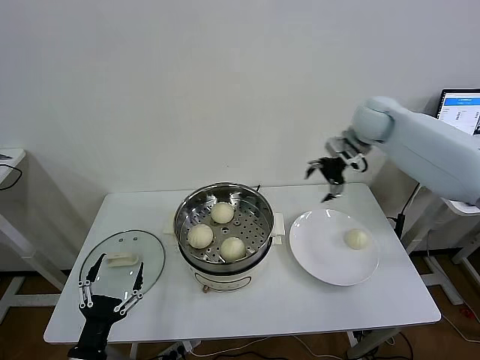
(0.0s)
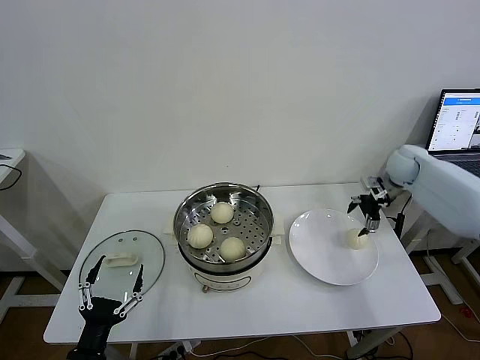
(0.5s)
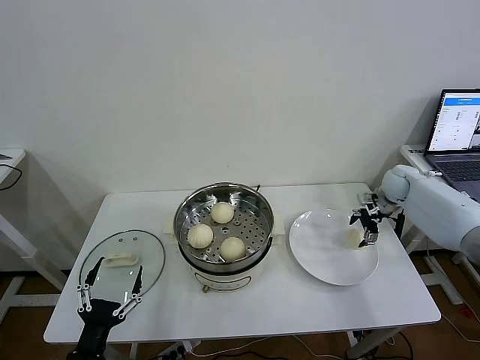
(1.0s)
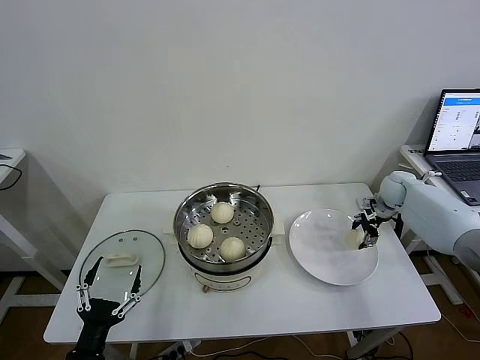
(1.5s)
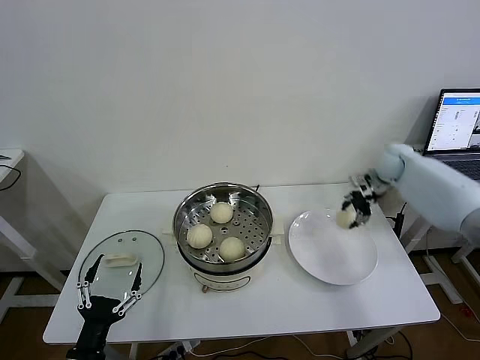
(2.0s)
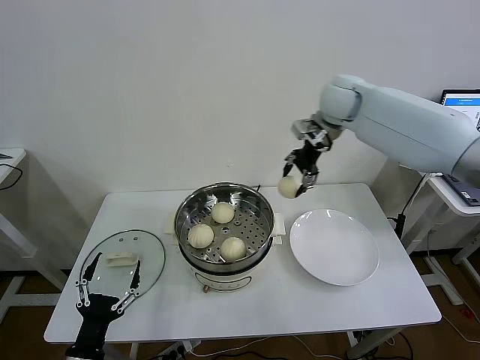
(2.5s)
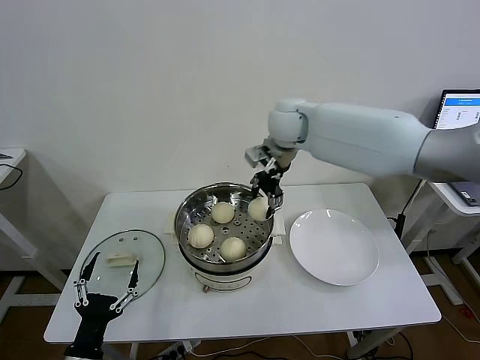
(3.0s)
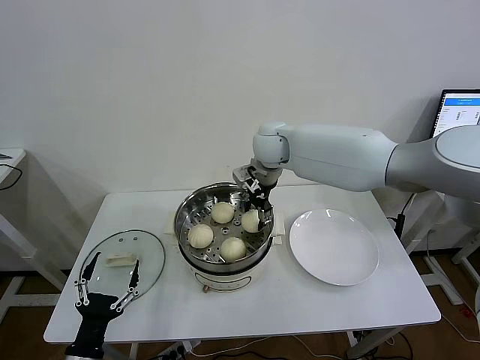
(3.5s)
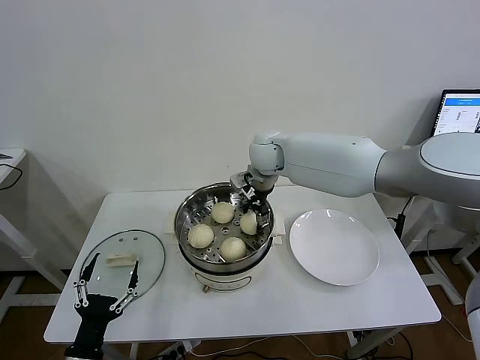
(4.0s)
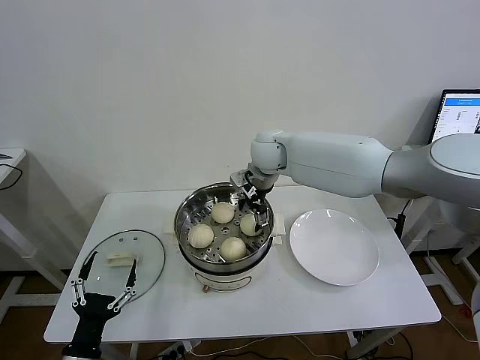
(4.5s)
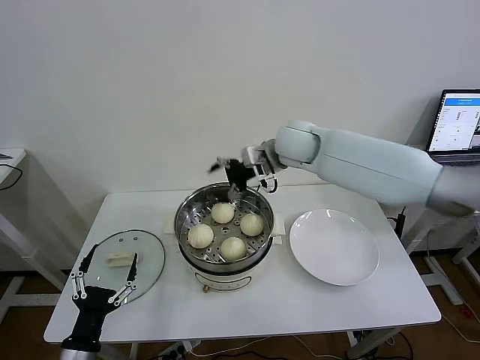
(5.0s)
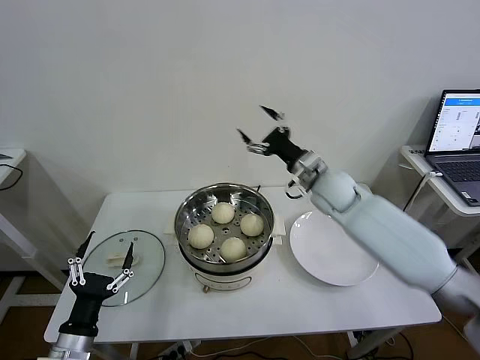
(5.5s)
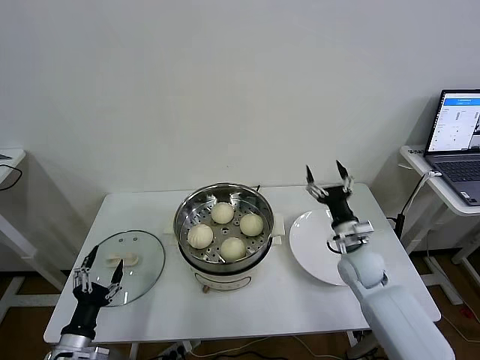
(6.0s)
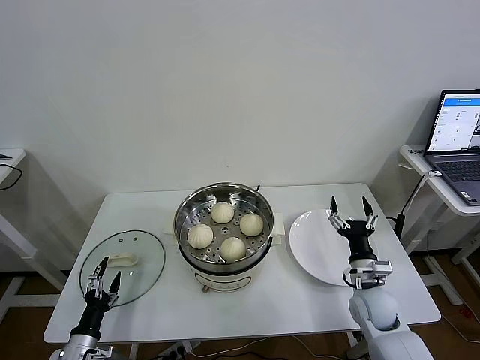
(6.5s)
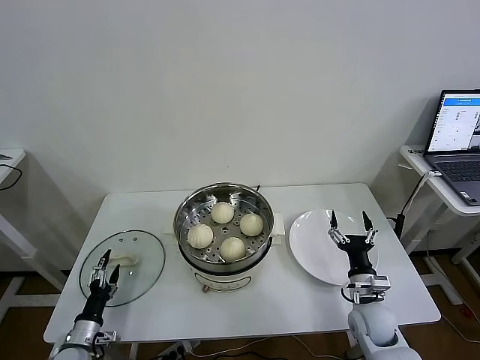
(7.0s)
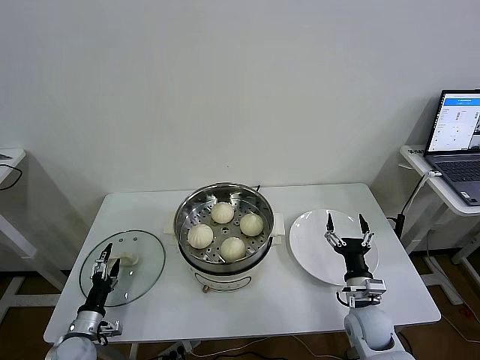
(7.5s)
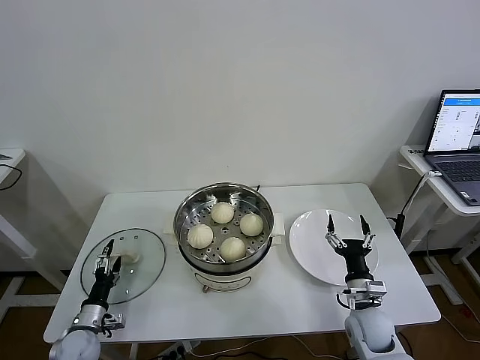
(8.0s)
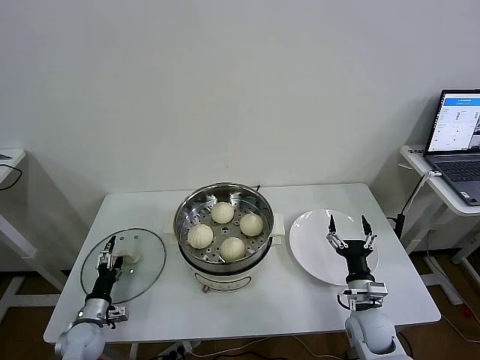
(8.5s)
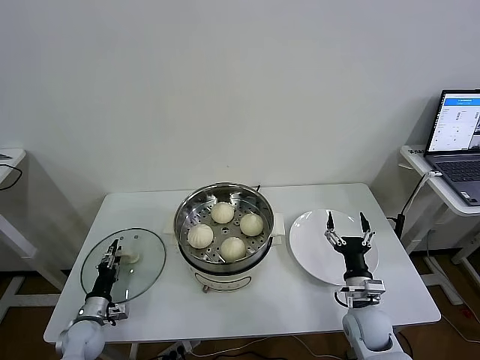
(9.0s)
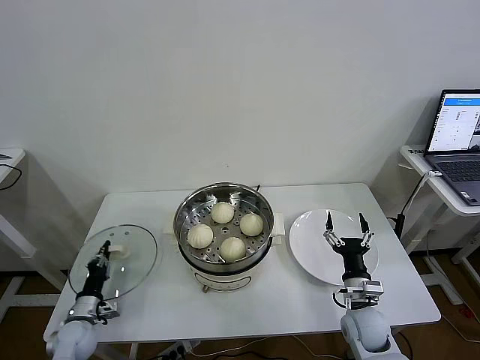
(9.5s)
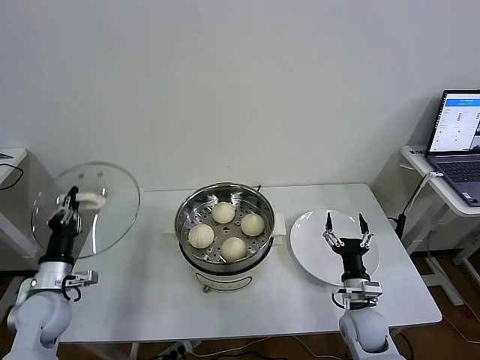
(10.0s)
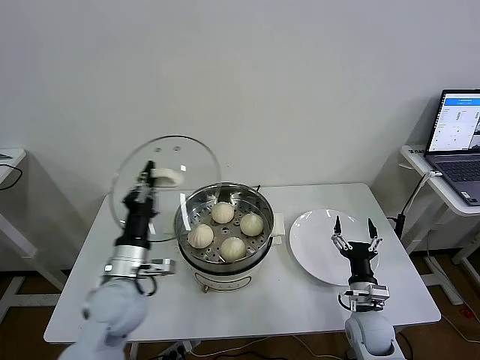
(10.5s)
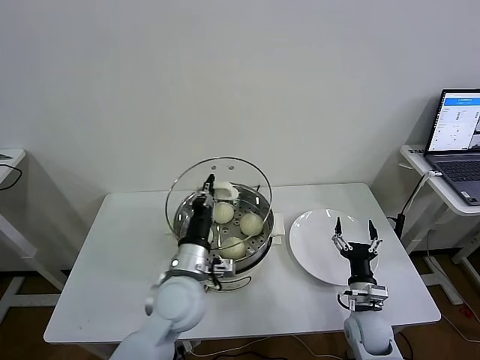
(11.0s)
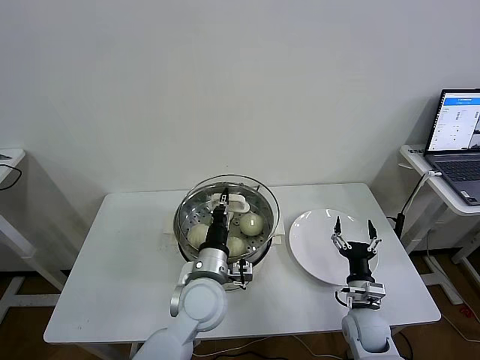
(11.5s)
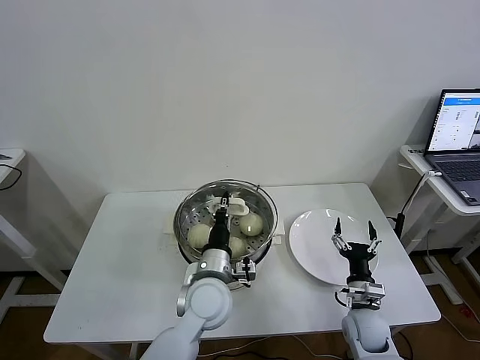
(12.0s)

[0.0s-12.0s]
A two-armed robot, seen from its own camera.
Task of the whole recording: take steamed baozi put them in steamer then cover it.
Step, 0.0s to 1.5s: Grasp the baozi in the plate with right gripper.
Step, 2.0s to 4.0s: Place the baozi on the steamer with right gripper.
Step, 4.5s to 9.5s: Grasp the pot lid with left gripper.
0.0s to 2.0s: The right gripper goes roughly 15 cm downward and to the right, and closes up.
2.0s to 4.0s: The right gripper heads to the left, covering approximately 35 cm.
4.0s to 6.0s: The right gripper is displaced to the right, downward and backward by approximately 35 cm, and opens its fingers; the left gripper changes place by some 5 cm.
6.0s to 8.0s: The right gripper is displaced backward and downward by some 15 cm; the left gripper moves downward and forward, roughly 15 cm.
8.0s to 10.0s: The left gripper moves upward, some 15 cm, and closes.
10.0s to 12.0s: The left gripper goes approximately 35 cm to the right.

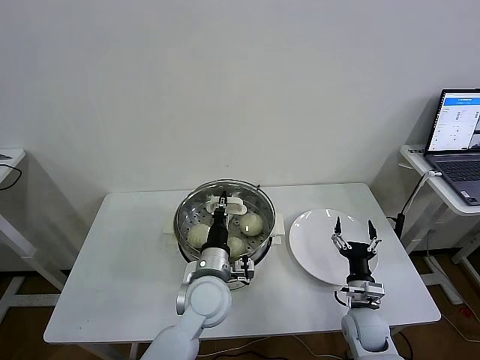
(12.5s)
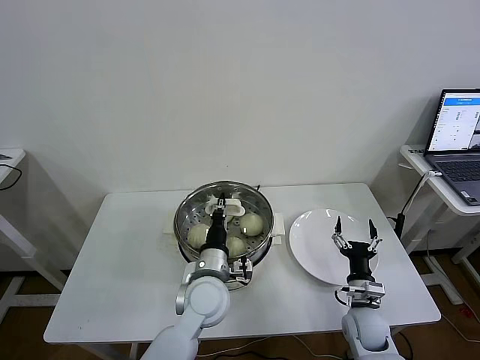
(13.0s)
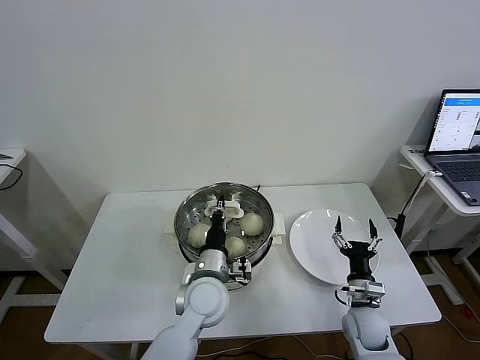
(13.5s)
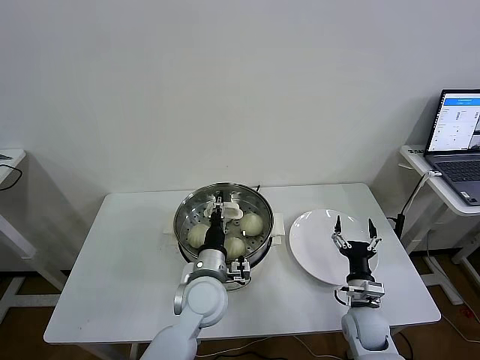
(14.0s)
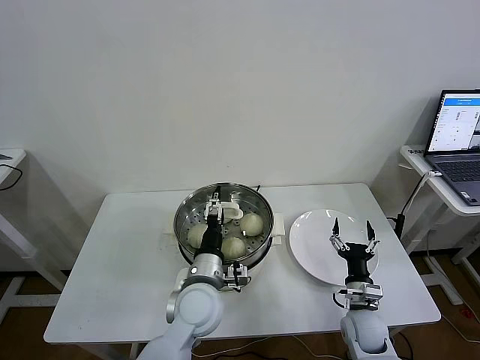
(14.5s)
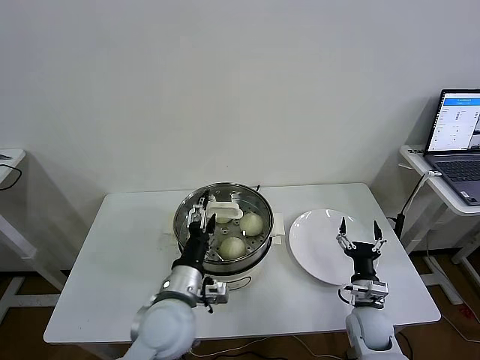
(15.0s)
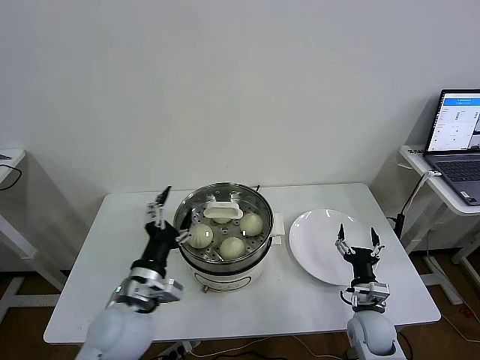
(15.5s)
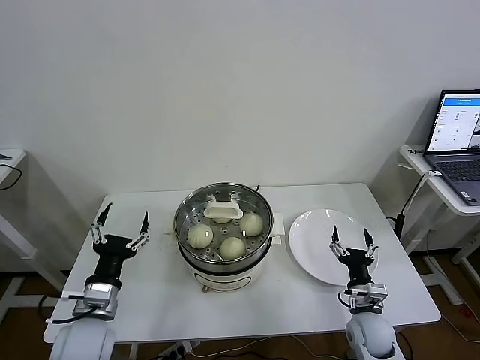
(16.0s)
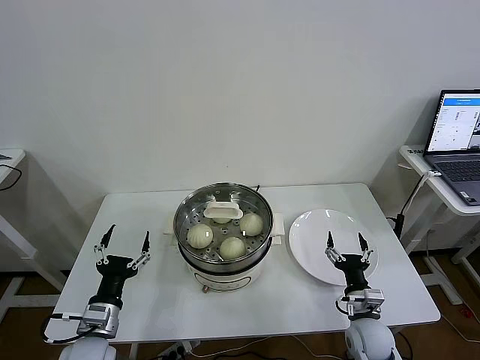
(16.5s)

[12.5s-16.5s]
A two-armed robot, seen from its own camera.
Task of the whole recording: take steamed baozi put them in steamer then cover it.
12.5s to 14.5s: The left gripper opens.
14.5s to 16.5s: The left gripper travels to the left and backward by about 25 cm.

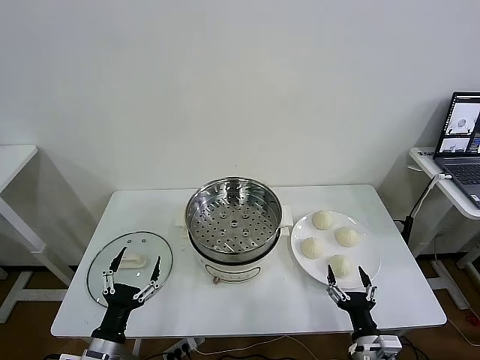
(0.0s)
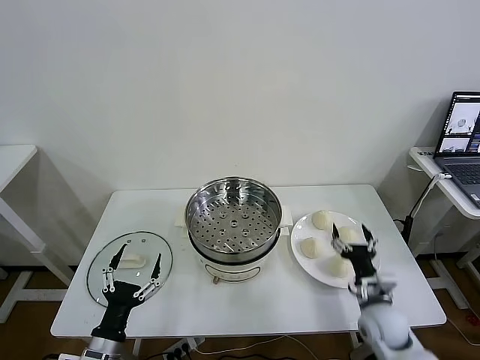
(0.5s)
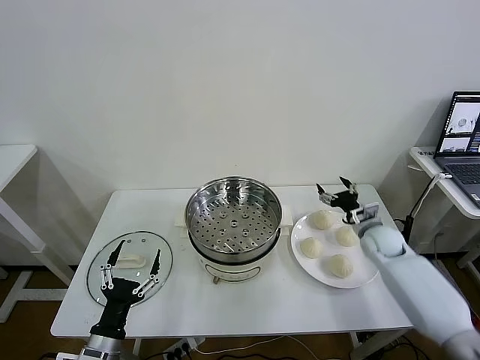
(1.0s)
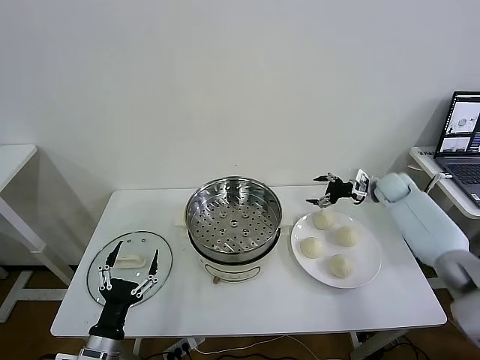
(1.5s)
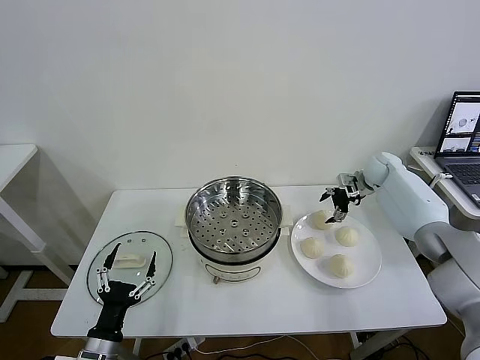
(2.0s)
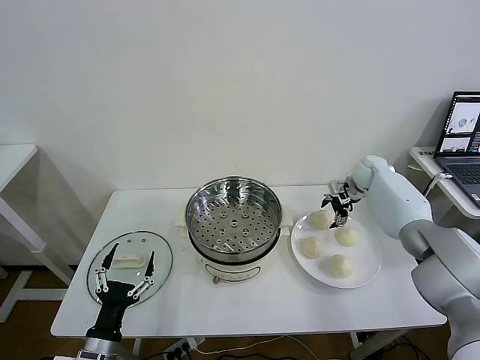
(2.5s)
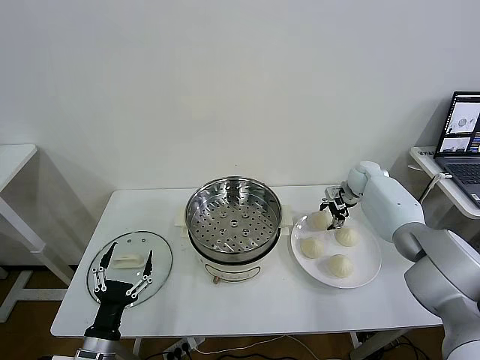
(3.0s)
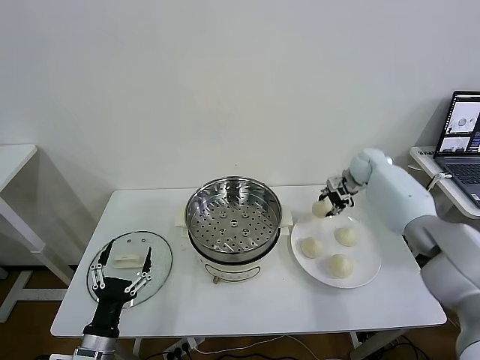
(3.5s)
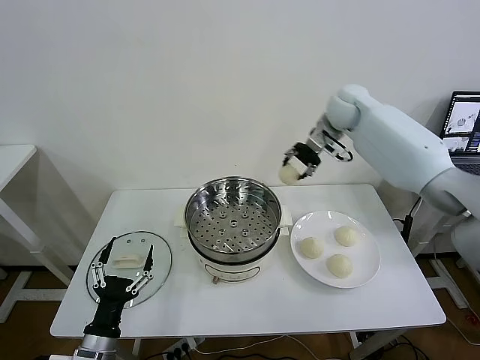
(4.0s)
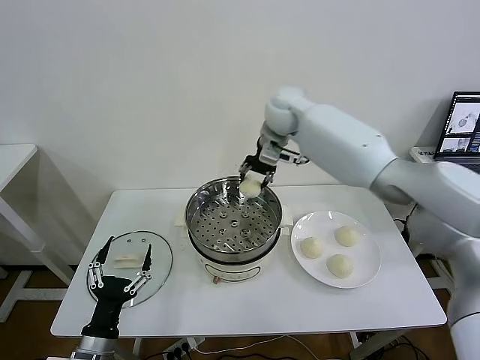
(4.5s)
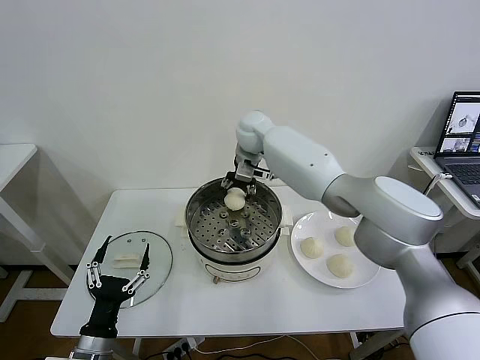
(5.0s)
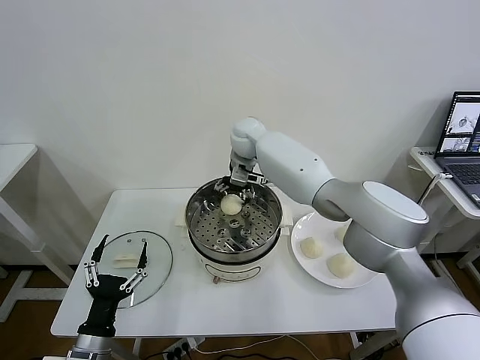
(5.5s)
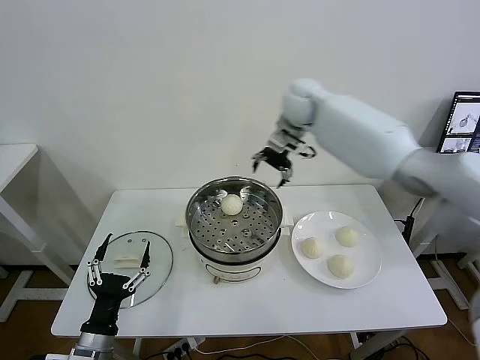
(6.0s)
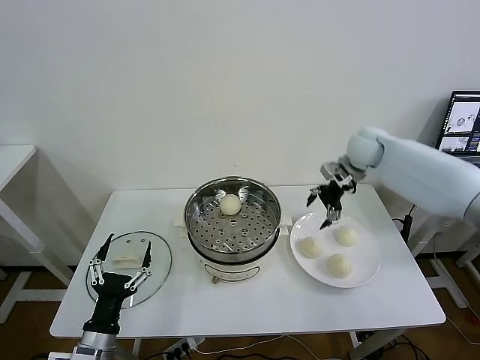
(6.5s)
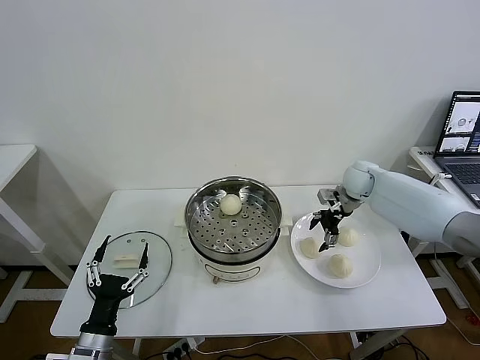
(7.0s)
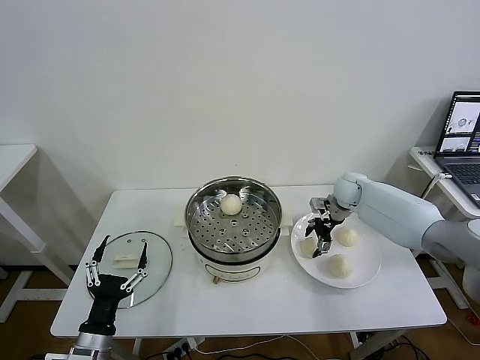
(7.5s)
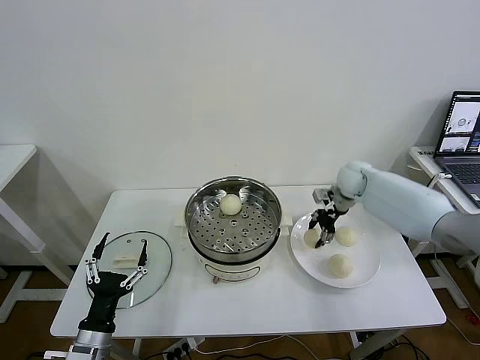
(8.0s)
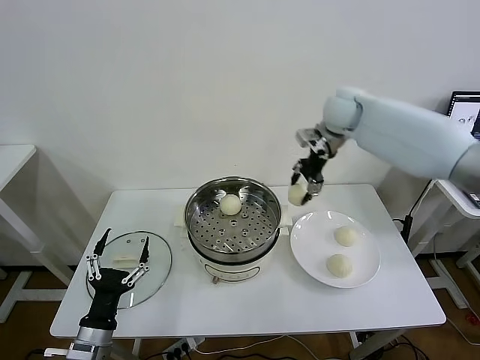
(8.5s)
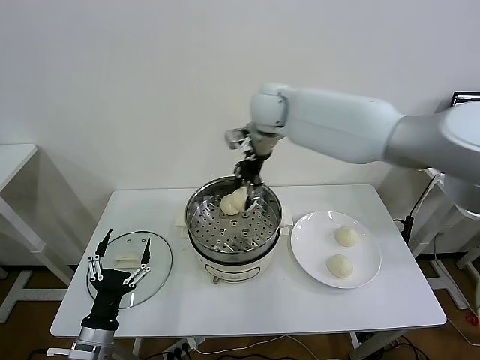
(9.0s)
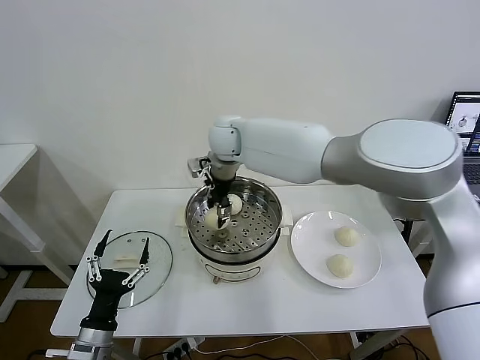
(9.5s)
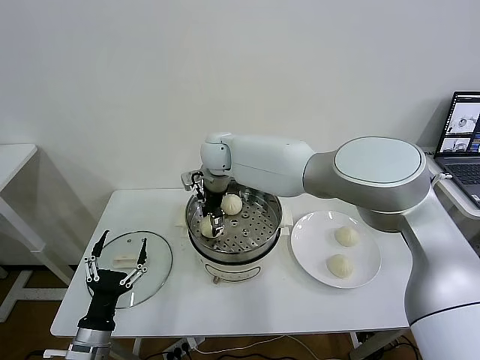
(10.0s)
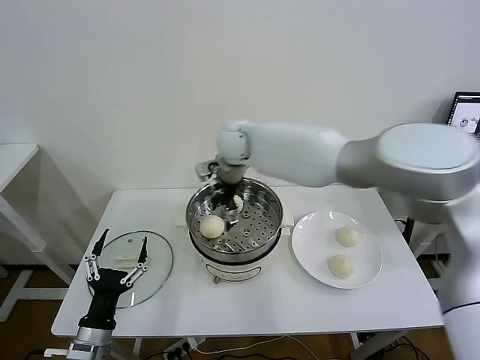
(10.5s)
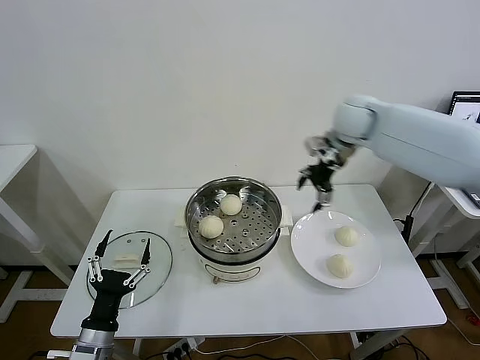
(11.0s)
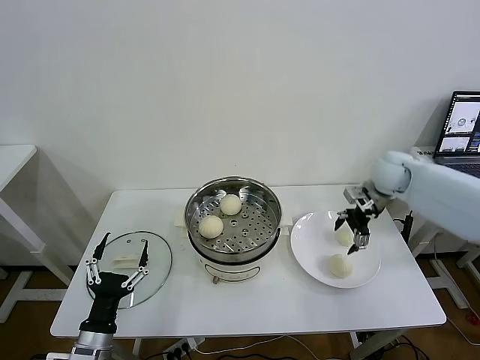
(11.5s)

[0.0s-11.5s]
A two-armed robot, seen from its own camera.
Task of the whole recording: take steamed baozi put them in steamer then cover it.
Step, 0.0s to 3.0s: Grasp the baozi in the plate with right gripper.
Step, 3.5s to 5.0s: Place the baozi on the steamer with right gripper.
Step, 5.5s to 7.5s: Grasp the baozi in the plate with right gripper.
Step, 8.0s to 10.0s: Place the baozi on the steamer with right gripper.
2.0s to 4.0s: The right gripper shifts roughly 30 cm upward and to the left, and closes.
4.0s to 6.0s: The right gripper goes to the left and returns, about 20 cm each way, and opens.
6.0s to 7.5s: The right gripper shifts roughly 25 cm downward and to the right, and closes its fingers.
7.5s to 9.5s: The right gripper heads to the left and upward, covering some 40 cm.
9.5s to 11.5s: The right gripper heads to the right, covering roughly 40 cm, and opens up.
